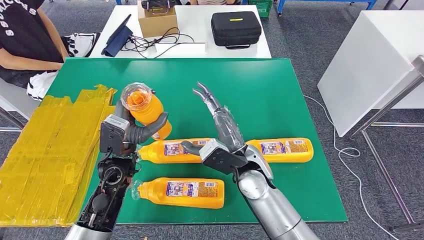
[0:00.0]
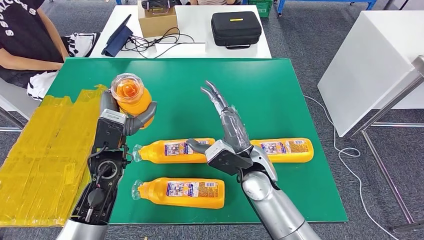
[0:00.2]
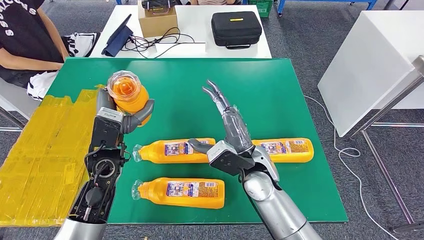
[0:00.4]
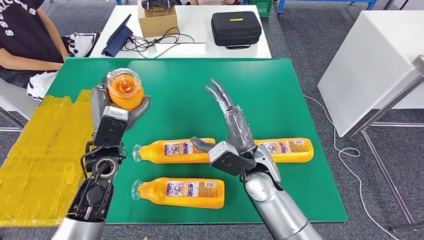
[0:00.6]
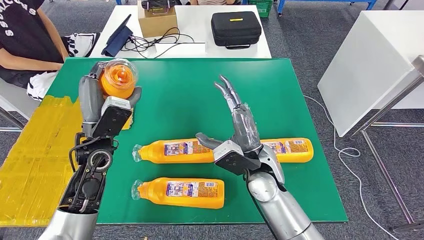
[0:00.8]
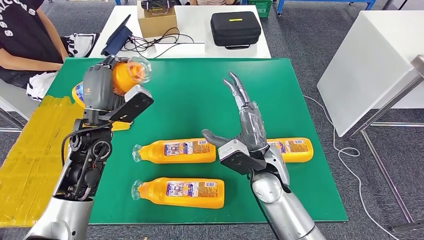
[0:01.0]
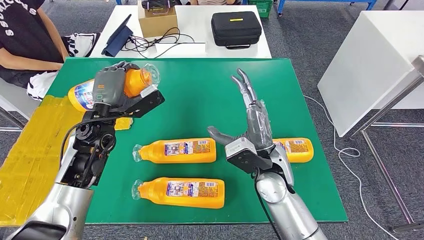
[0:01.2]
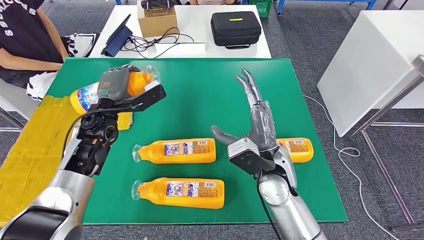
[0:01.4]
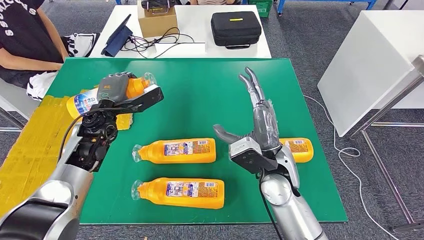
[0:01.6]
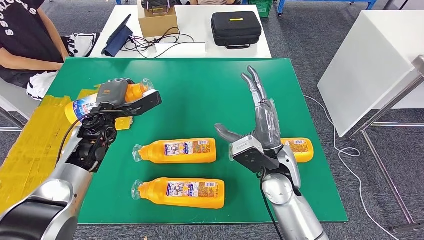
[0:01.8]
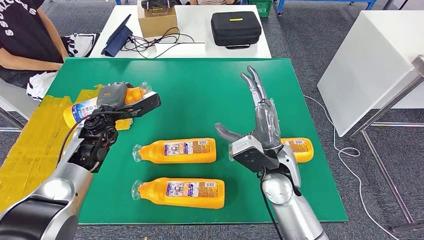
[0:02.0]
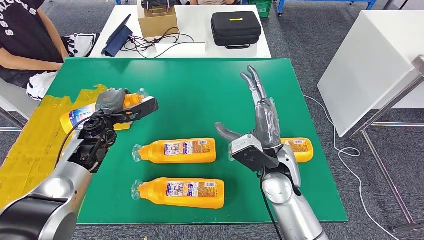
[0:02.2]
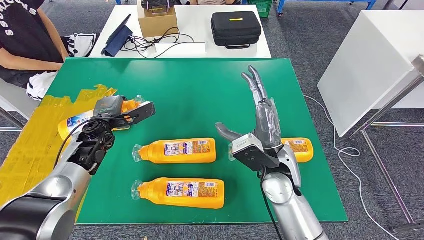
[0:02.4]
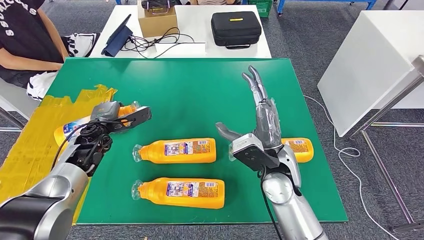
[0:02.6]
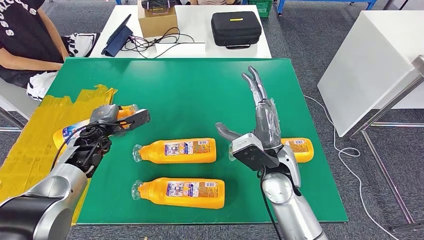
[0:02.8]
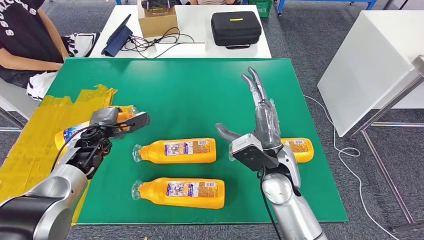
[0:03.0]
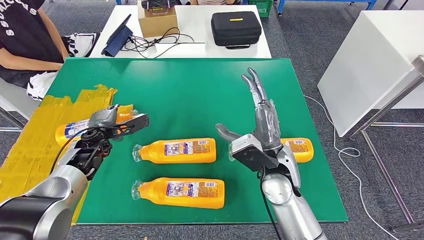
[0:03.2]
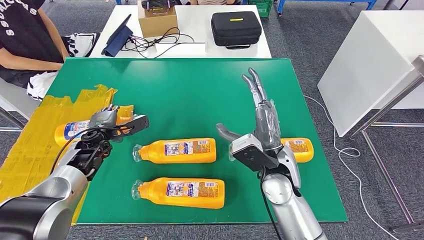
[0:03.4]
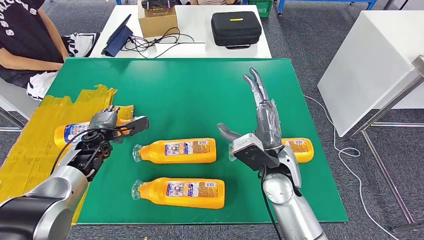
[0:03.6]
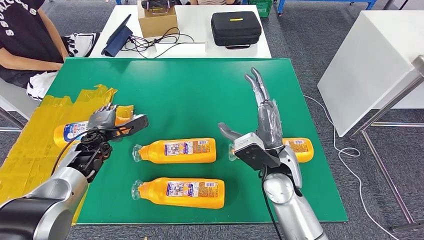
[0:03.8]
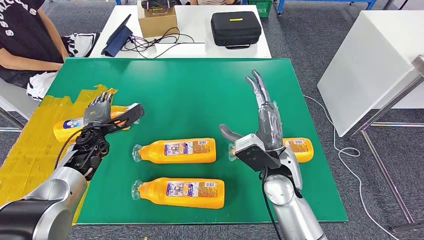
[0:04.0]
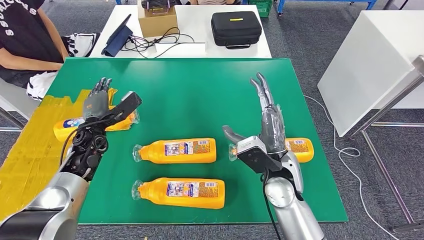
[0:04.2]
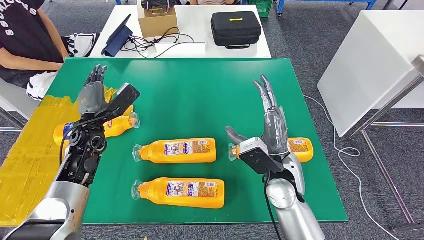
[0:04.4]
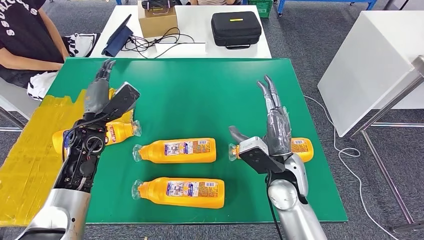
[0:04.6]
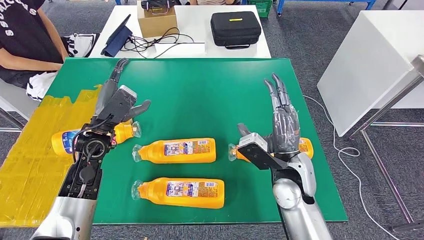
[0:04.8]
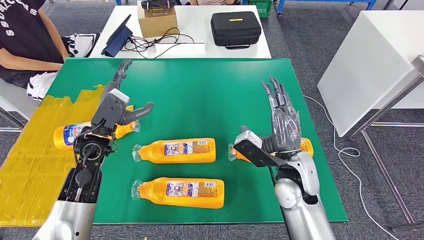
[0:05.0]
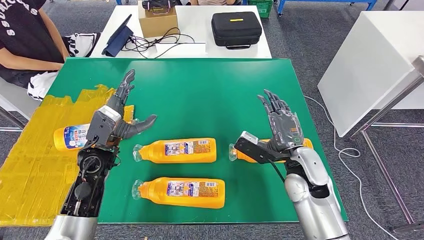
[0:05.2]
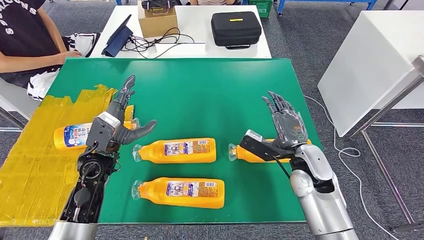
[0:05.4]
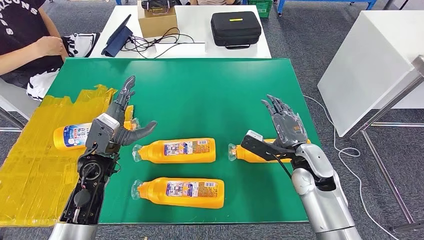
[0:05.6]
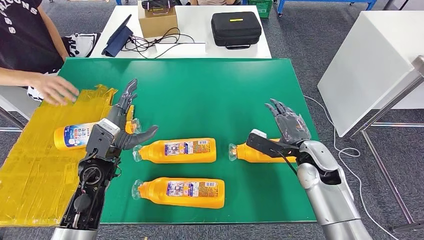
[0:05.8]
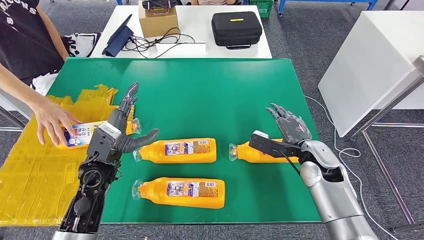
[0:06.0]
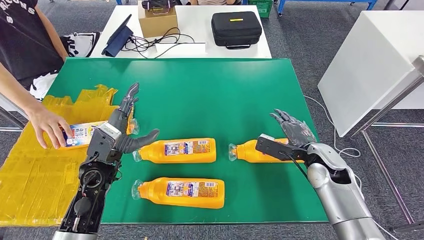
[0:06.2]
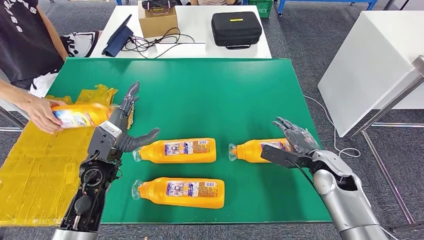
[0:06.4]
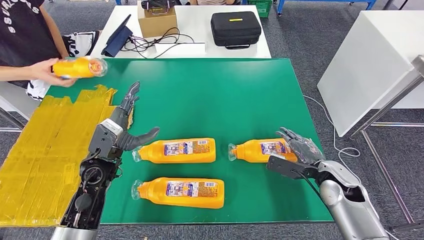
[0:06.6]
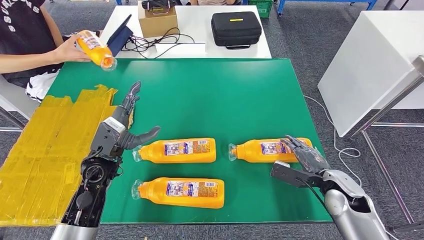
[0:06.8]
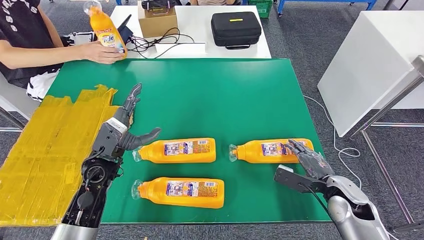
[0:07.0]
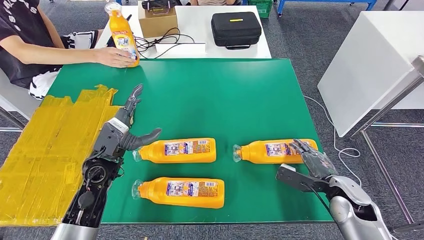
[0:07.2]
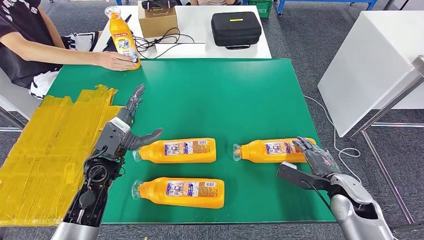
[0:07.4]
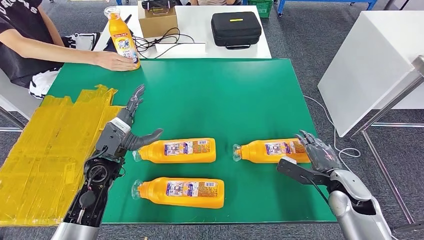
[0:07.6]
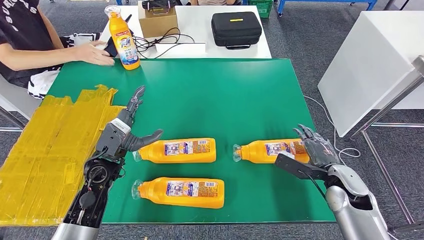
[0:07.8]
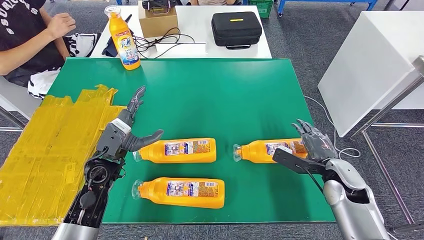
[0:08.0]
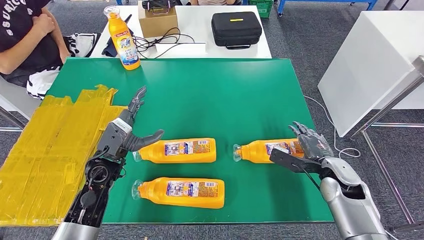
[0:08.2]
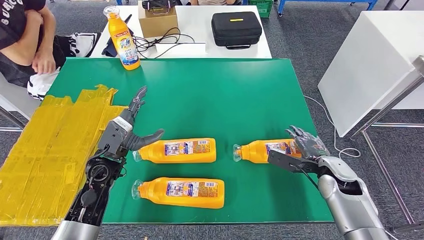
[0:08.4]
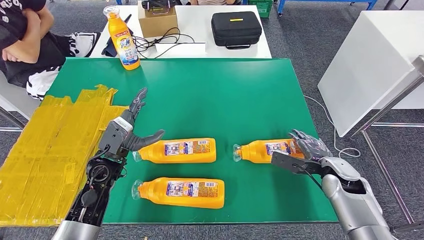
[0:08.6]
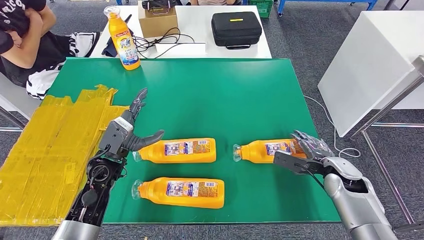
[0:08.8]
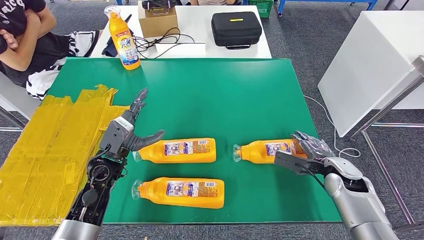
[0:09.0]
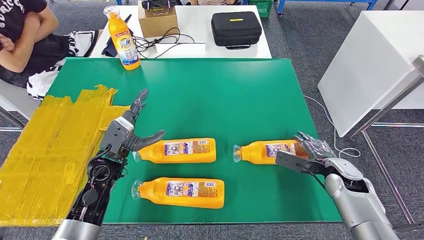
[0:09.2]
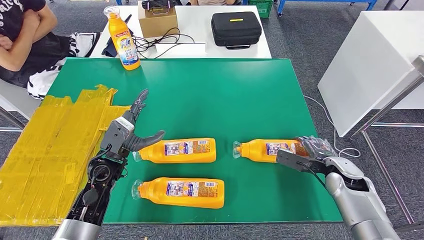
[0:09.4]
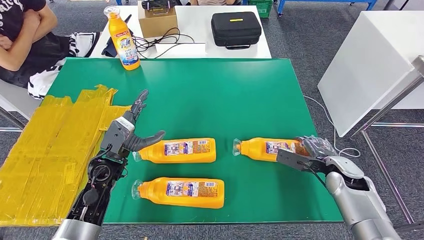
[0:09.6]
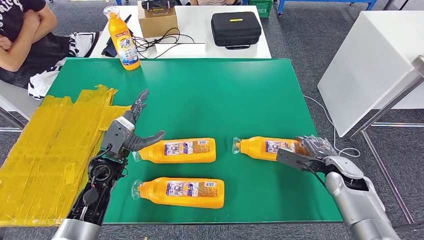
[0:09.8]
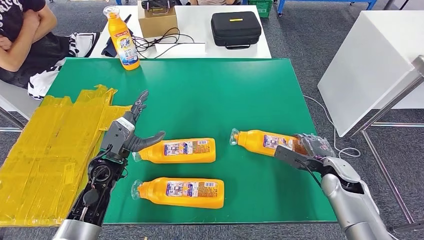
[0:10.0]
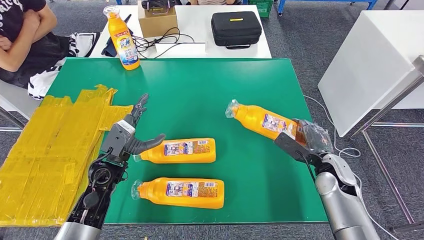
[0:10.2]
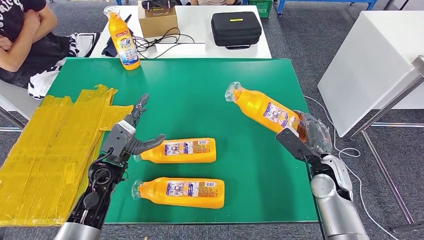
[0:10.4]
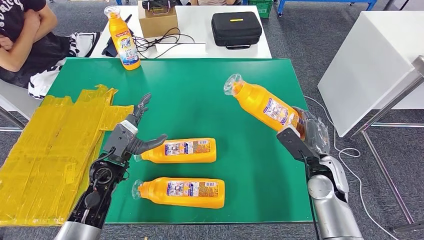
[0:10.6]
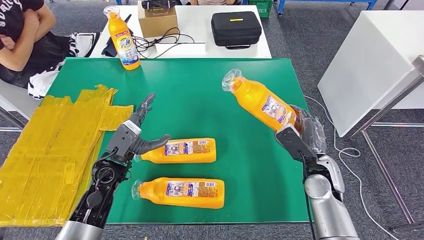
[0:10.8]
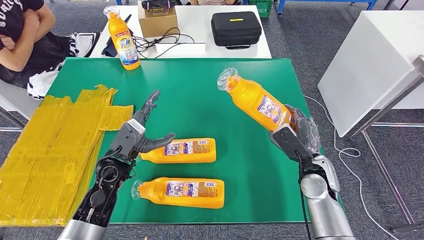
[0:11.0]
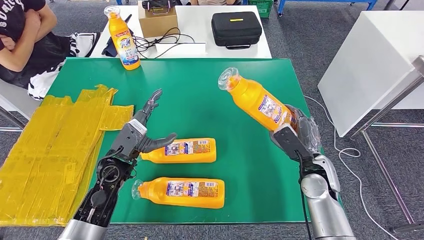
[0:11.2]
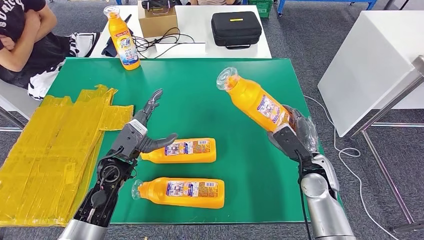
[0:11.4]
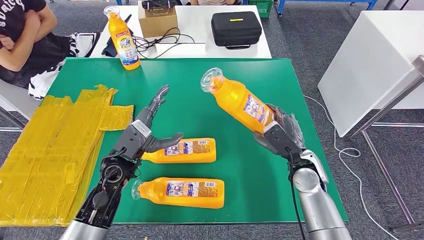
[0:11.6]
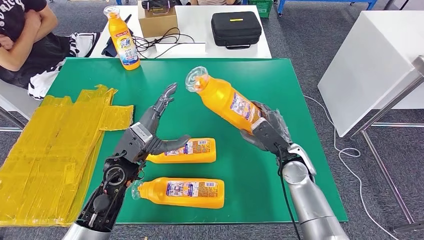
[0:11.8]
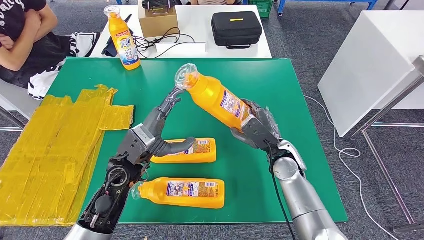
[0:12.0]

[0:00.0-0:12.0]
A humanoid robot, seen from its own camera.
Step, 0:00.0 to 0:03.2: Flip the bottle to face forward.
0:01.6 to 0:03.0: The left hand heads downward, covering approximately 10 cm.
0:03.0 to 0:04.4: The left hand changes place by some 5 cm.
0:06.0 to 0:07.6: The right hand is displaced to the right and backward by roughly 10 cm.
0:07.6 to 0:09.0: There are only small adjustments of the hands.
0:09.0 to 0:10.4: The right hand shifts by about 5 cm.
0:10.4 to 0:12.0: The right hand goes some 10 cm to the left; the left hand travels to the right and upward by some 10 cm.

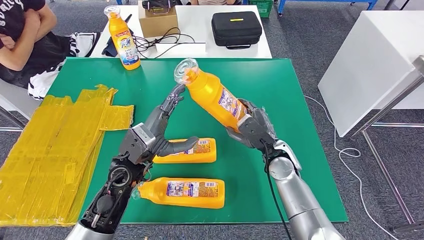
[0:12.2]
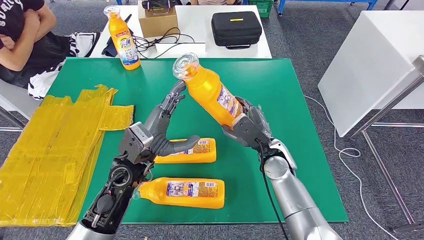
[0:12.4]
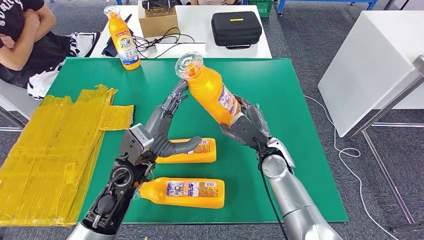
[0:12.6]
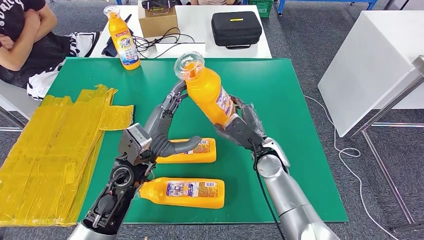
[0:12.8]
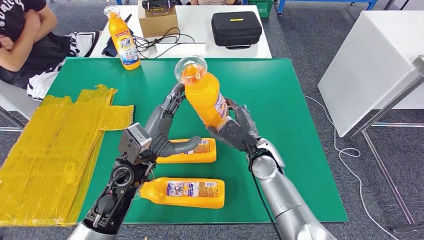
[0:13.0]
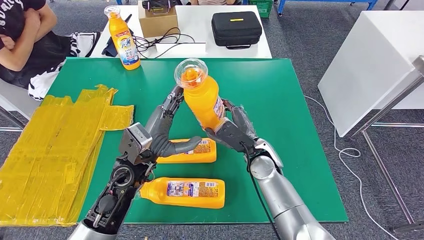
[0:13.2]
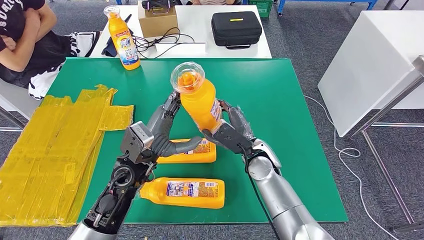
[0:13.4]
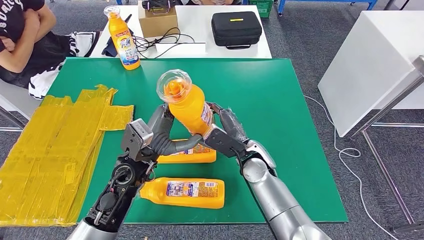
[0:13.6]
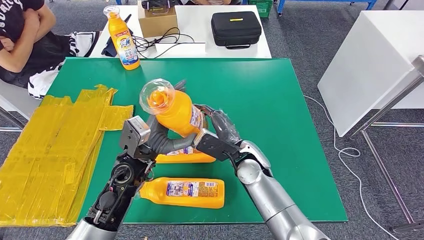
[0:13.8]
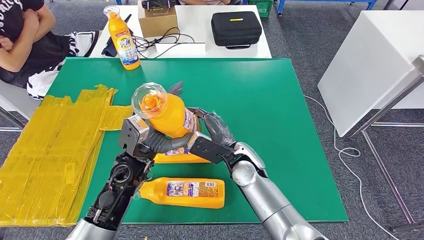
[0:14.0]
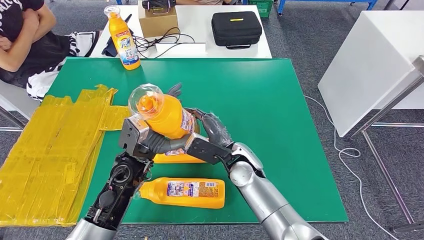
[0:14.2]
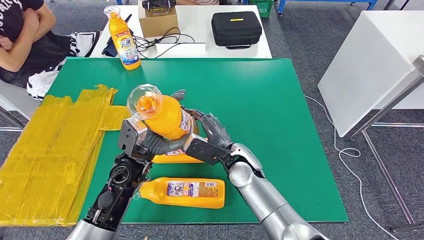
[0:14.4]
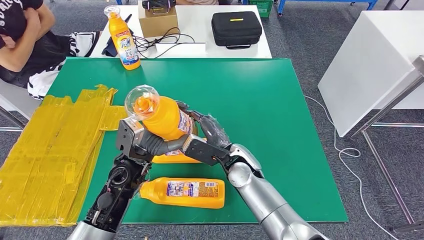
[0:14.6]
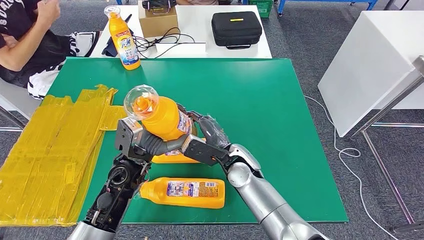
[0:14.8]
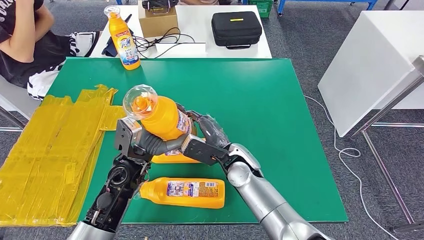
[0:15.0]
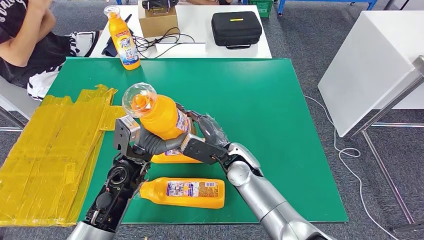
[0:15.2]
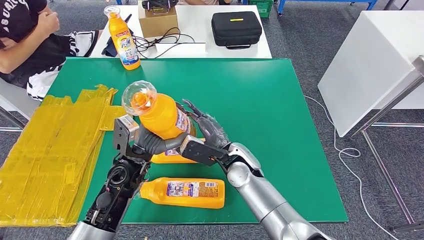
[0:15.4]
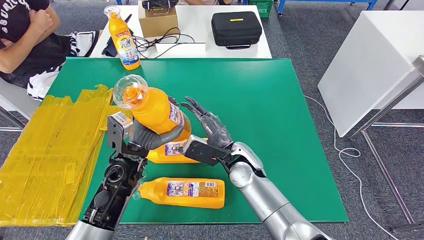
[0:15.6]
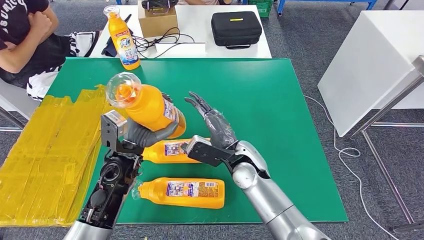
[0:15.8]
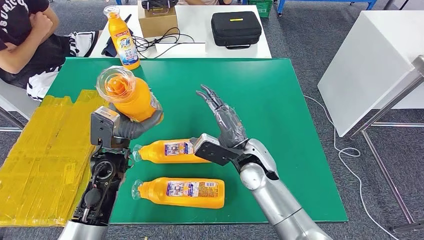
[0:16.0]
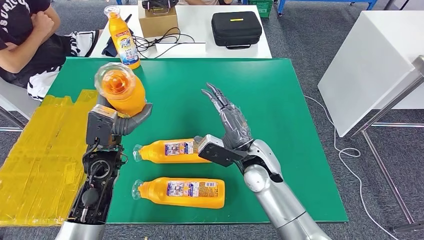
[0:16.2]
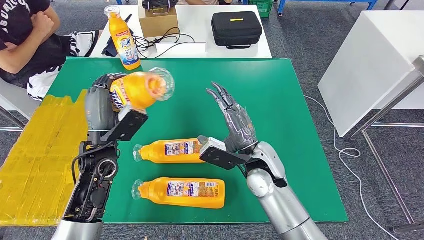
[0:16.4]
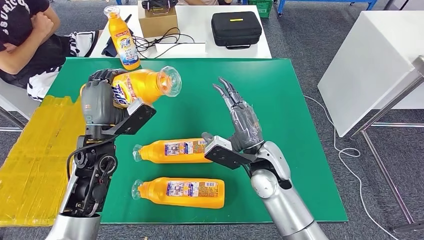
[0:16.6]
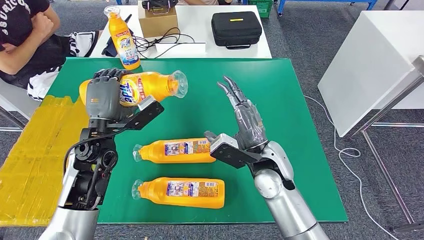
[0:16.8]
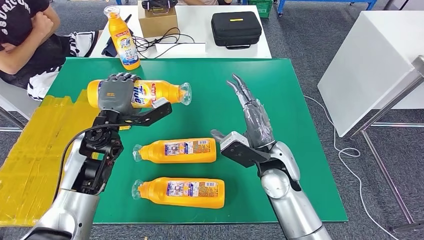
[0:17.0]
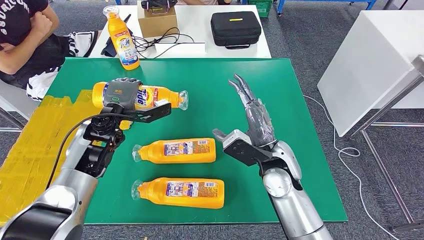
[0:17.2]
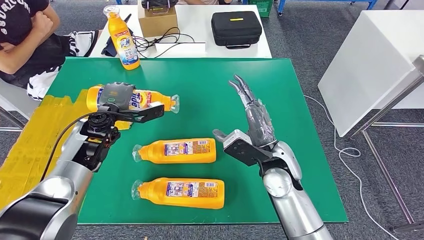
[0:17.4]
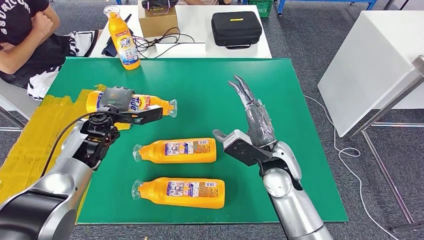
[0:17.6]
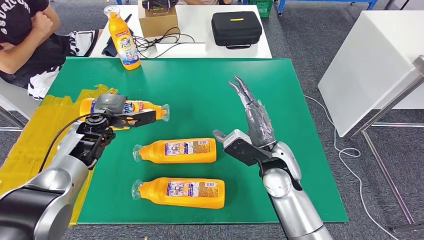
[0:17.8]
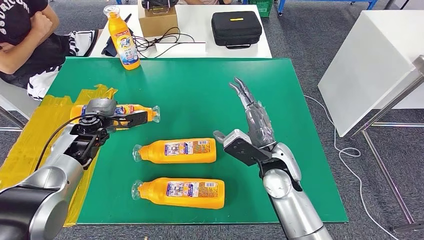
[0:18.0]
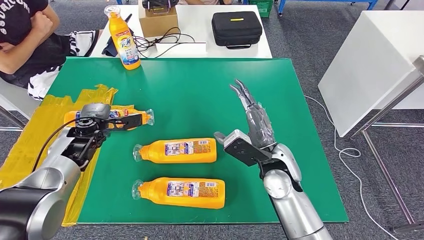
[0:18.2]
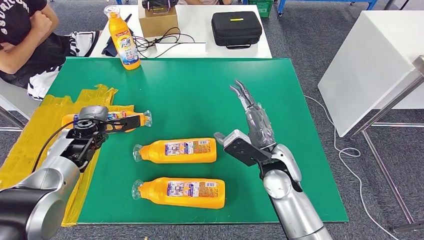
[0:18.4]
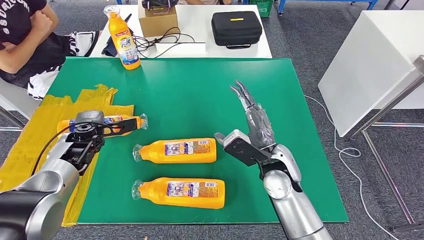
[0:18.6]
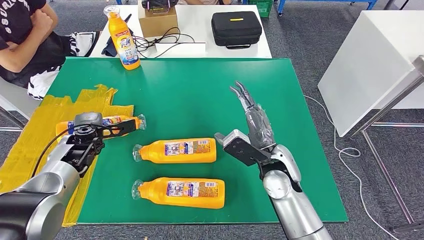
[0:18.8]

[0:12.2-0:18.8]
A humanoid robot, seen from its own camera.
0:12.2 to 0:13.8: The right hand travels to the left by some 10 cm.
0:13.8 to 0:15.4: There are only small adjustments of the hands.
0:17.2 to 0:18.8: The left hand is displaced to the left and downward by approximately 10 cm.
